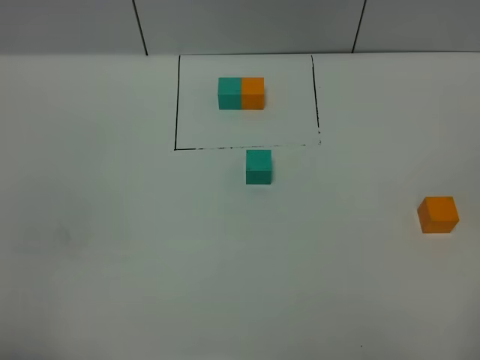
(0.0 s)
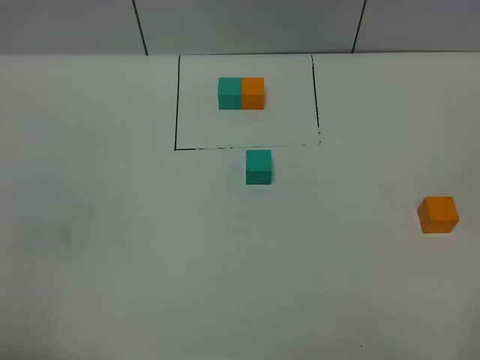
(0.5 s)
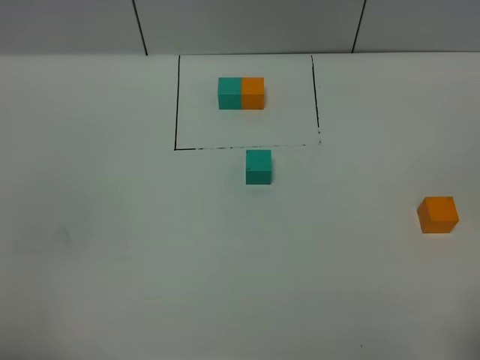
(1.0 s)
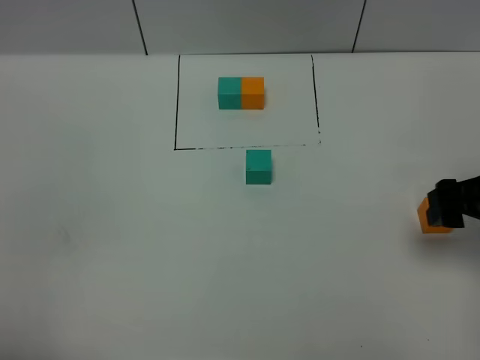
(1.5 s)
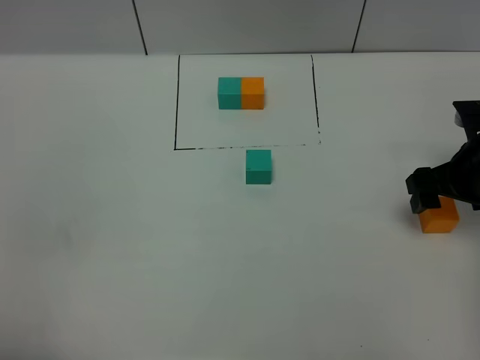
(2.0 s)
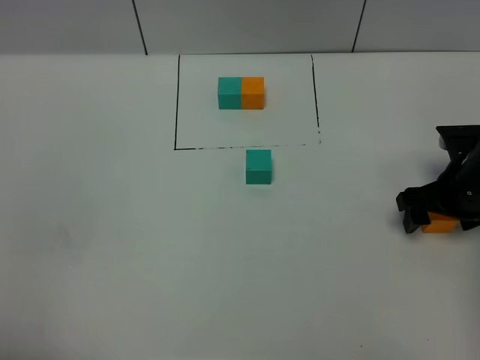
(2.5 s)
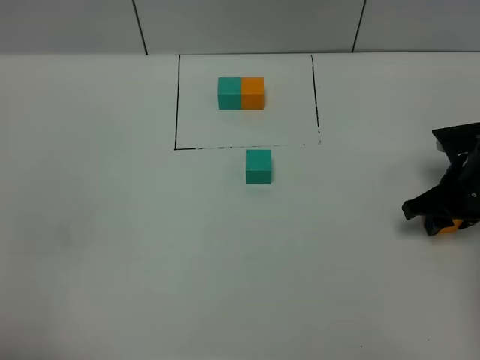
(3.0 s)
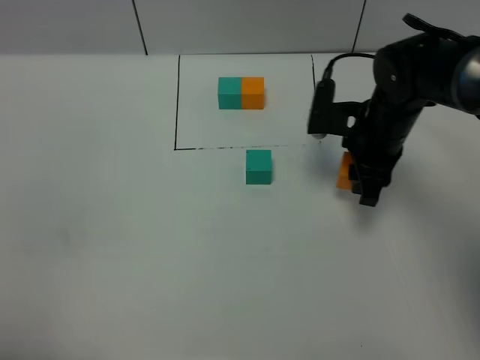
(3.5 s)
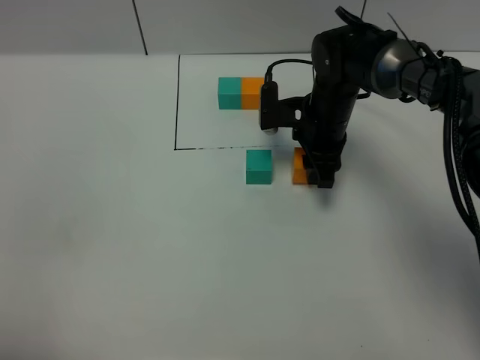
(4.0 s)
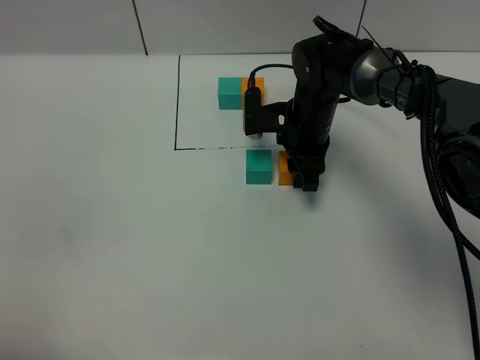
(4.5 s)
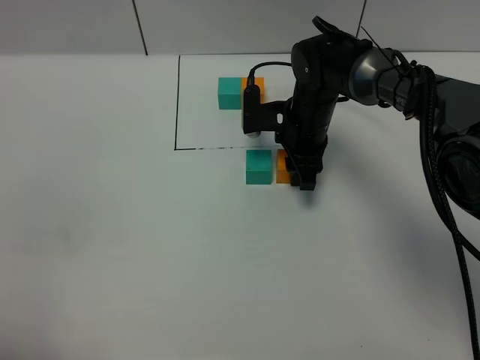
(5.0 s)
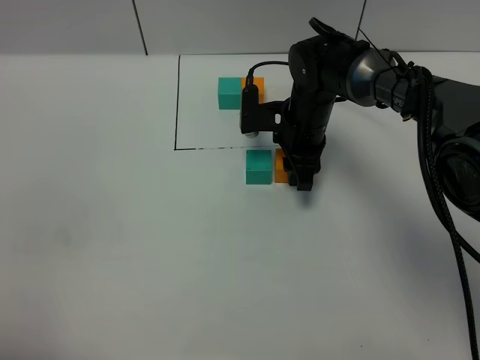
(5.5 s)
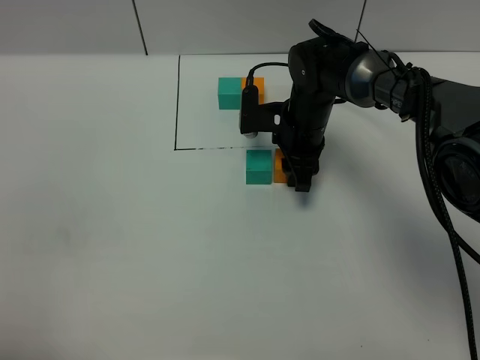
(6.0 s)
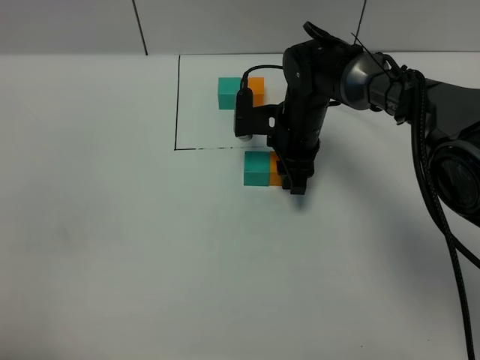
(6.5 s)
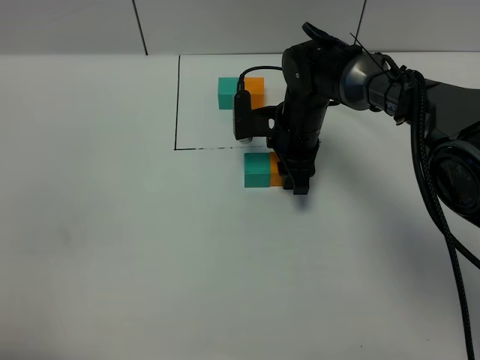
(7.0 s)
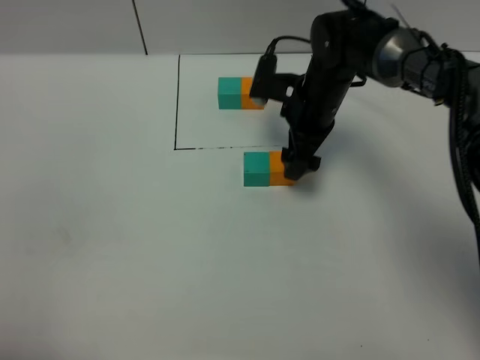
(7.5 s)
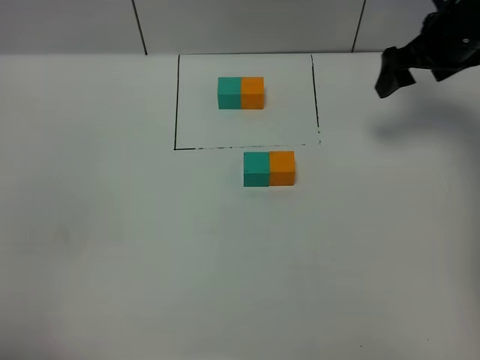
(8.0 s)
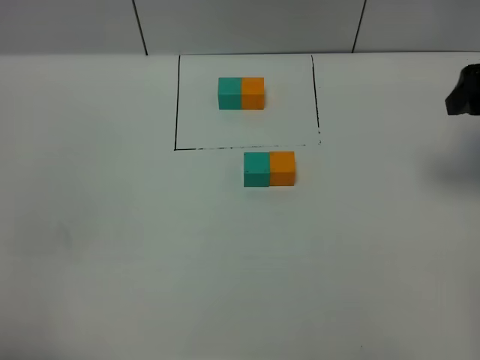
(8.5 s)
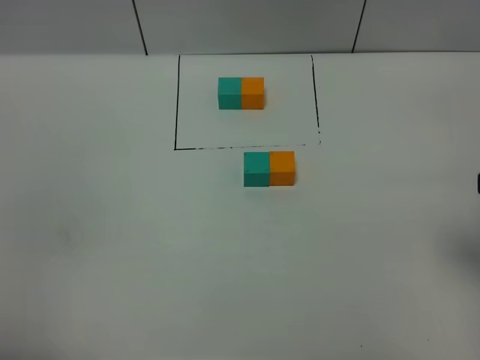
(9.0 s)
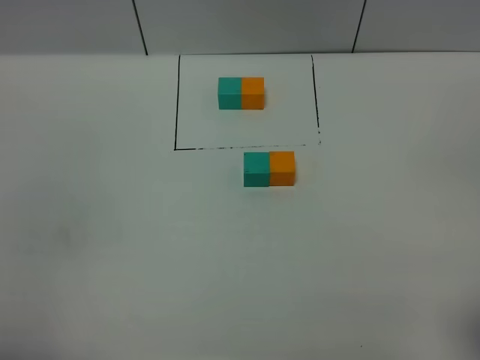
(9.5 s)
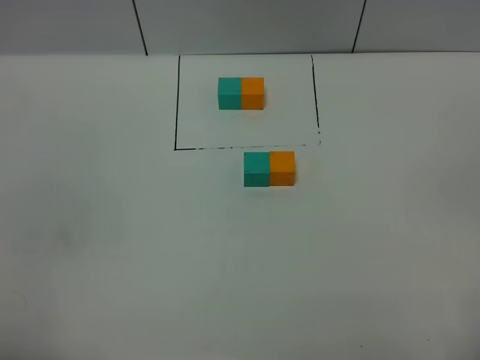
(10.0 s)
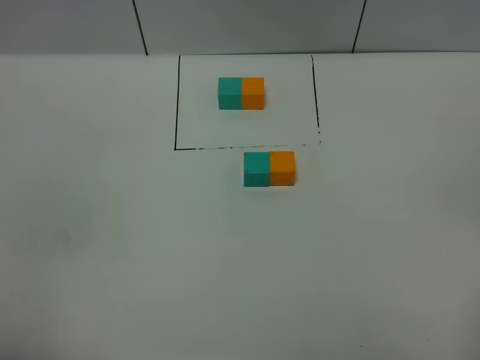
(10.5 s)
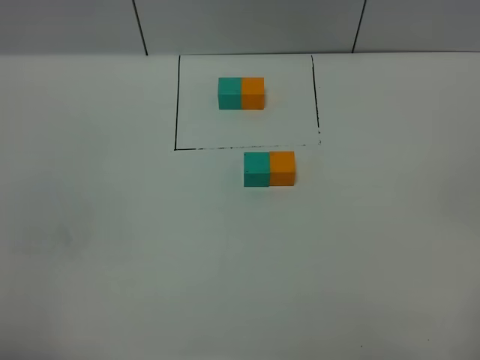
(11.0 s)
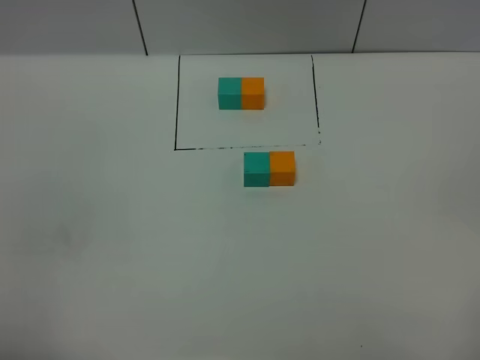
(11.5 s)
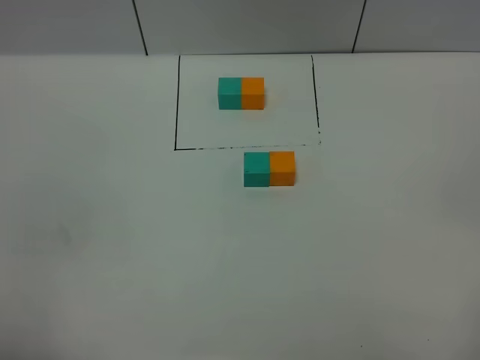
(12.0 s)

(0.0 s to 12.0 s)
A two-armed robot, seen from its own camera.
Task of the whole recording: According to the building block template in front, assemble the scattered blocks together.
Step, 0.0 s - 7.5 s: Put the orange cube on the right of the green cube.
0.0 s - 2.0 s: The right gripper moves forward, some 30 cm.
2.0 s - 4.0 s: The right gripper shifts approximately 20 cm to the left and forward, and closes.
4.0 s - 6.0 s: The grippers make only small movements.
6.0 s - 8.0 s: The right gripper moves to the right and upward, roughly 25 cm, and opens up.
8.0 s - 10.0 s: The right gripper shifts some 40 cm backward.
